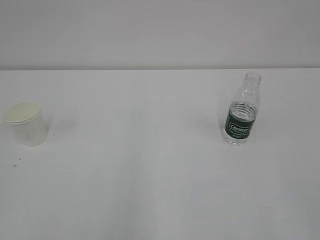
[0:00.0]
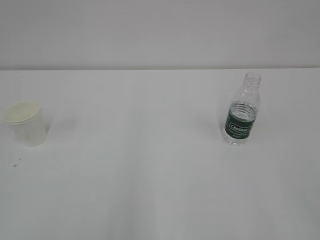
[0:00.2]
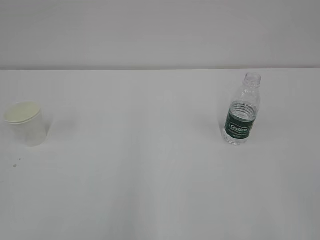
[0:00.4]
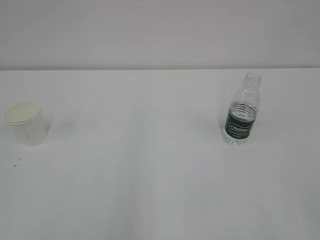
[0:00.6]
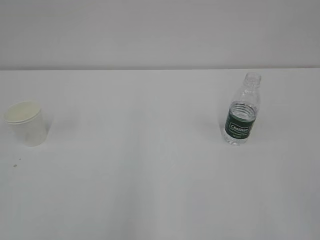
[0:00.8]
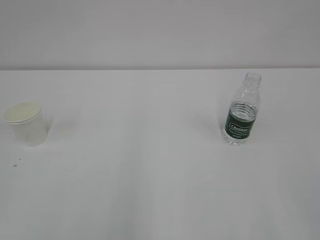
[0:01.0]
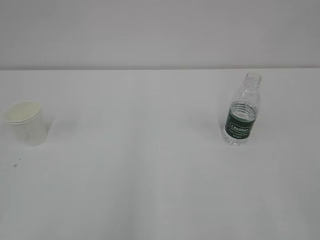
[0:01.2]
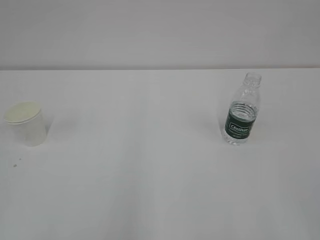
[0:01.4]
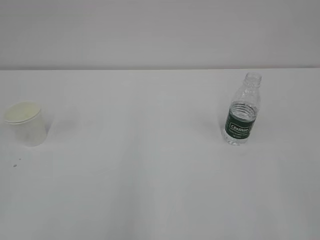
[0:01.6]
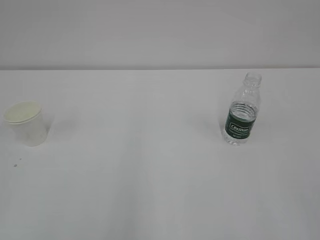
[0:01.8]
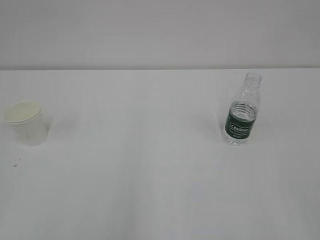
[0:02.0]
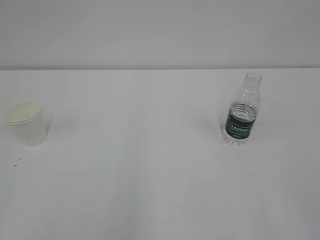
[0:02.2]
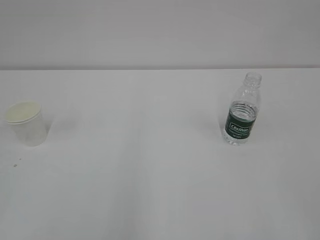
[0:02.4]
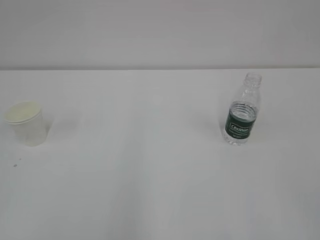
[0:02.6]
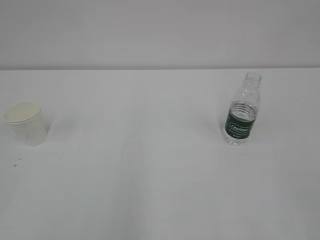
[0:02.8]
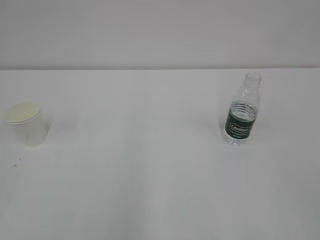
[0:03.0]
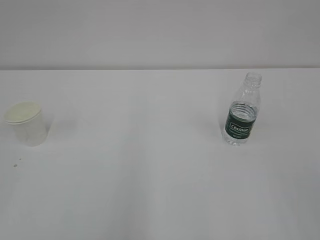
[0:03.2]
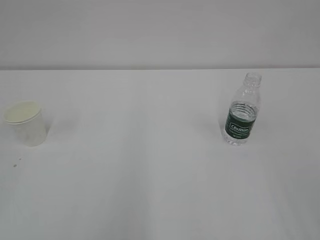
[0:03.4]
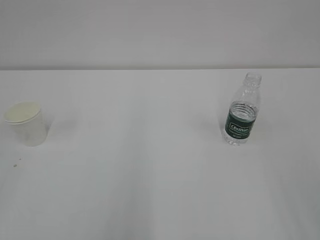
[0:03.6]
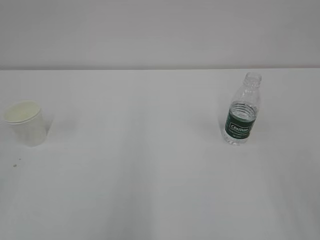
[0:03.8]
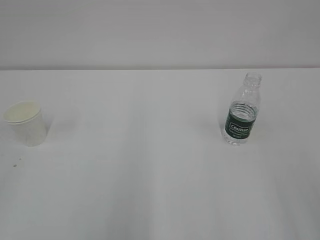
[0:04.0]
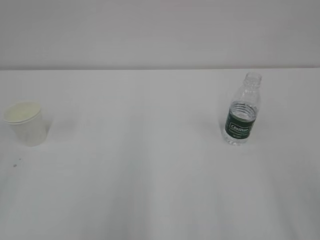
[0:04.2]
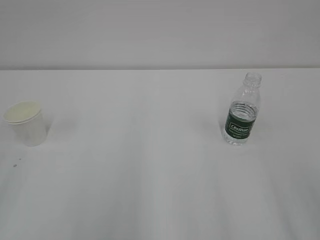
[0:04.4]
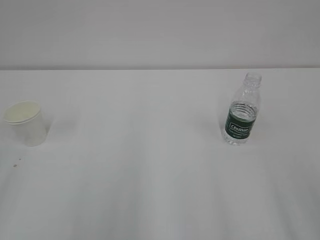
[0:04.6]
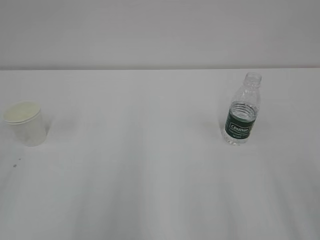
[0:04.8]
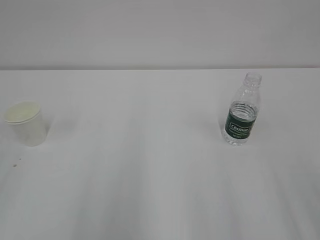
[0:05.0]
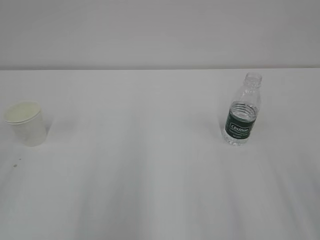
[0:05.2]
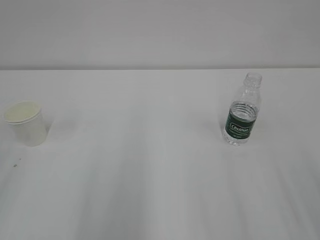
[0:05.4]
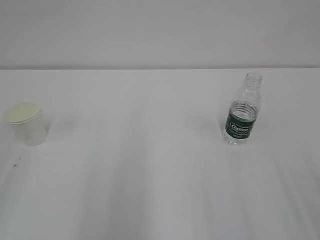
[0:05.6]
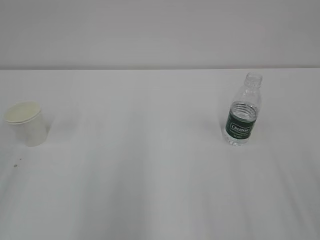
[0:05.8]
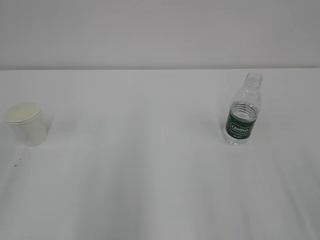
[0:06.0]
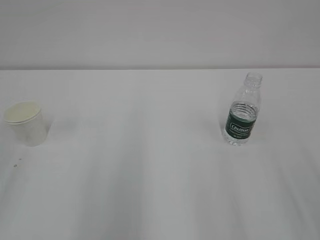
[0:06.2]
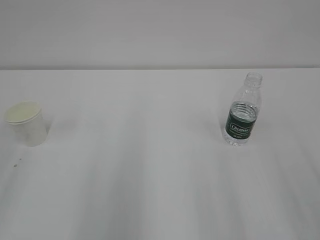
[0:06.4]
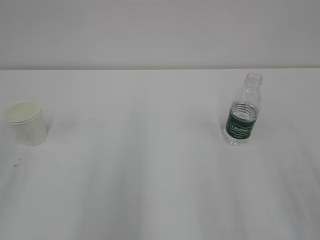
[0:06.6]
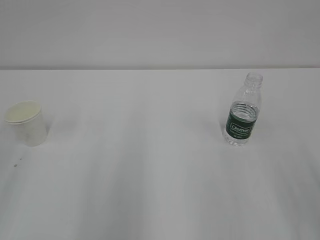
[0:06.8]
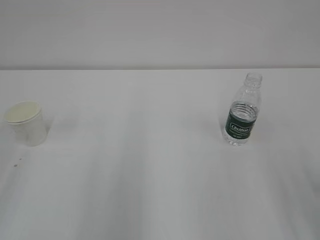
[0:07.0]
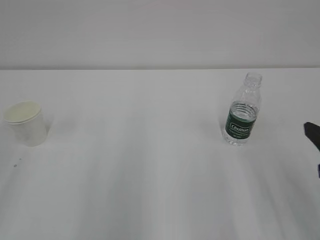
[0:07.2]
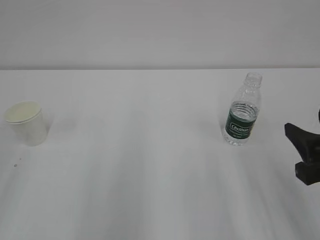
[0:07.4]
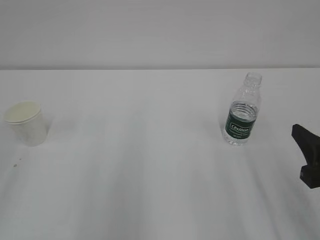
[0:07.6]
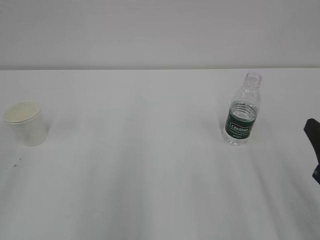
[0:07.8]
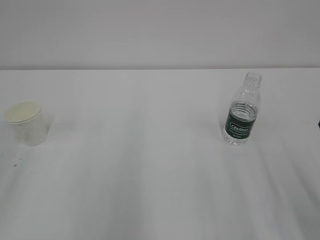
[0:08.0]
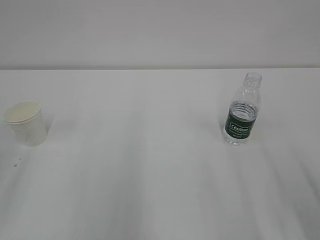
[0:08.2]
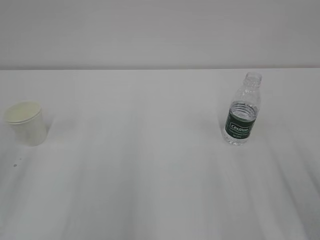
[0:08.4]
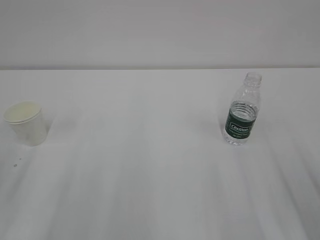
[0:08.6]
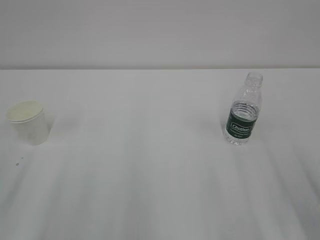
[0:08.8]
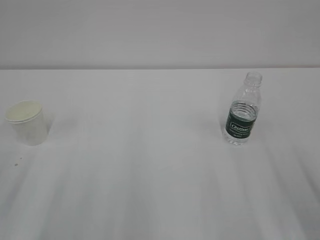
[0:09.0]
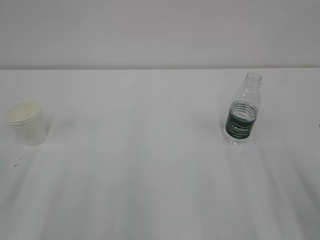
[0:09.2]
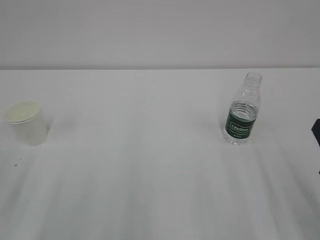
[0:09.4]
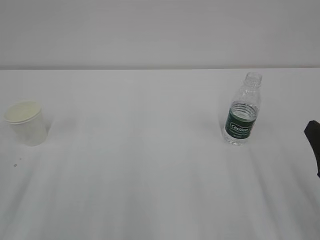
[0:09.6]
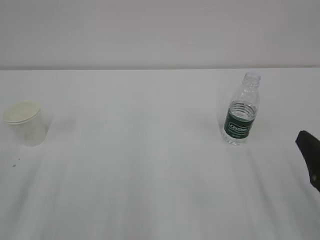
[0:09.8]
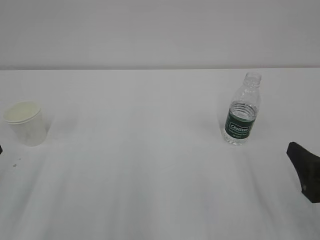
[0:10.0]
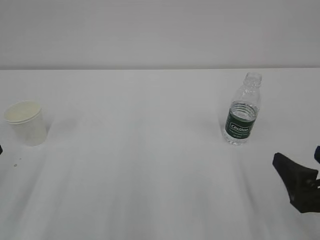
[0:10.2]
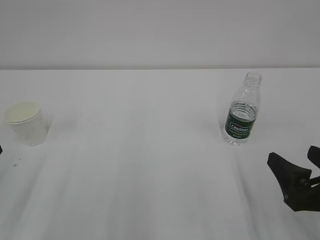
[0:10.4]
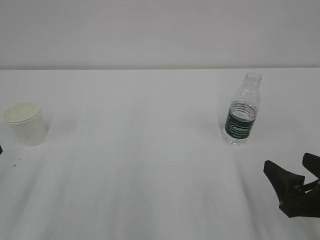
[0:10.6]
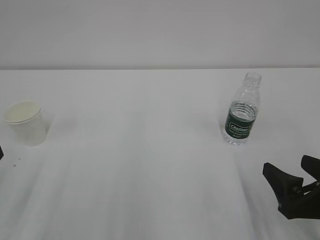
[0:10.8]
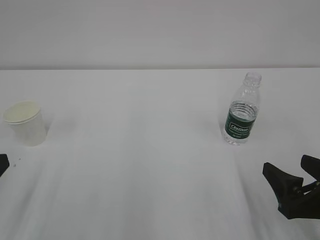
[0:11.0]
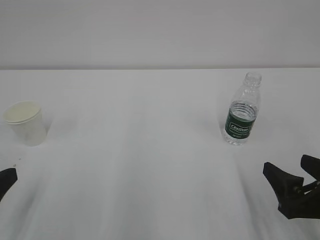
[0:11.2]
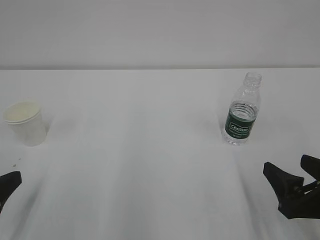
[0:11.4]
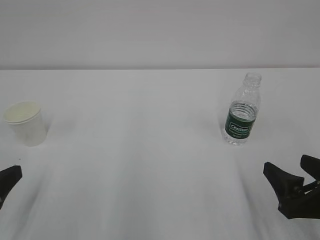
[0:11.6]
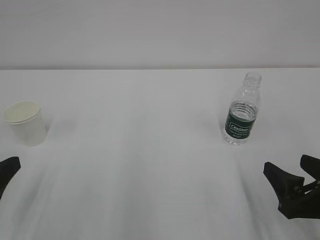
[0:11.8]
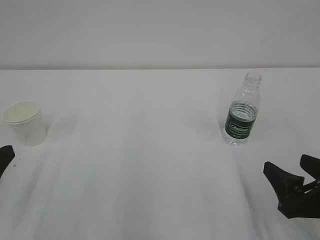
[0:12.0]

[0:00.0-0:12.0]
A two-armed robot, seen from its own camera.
0:06.0 to 0:07.6: The right gripper moves forward, roughly 10 cm.
0:09.0 to 0:10.4: The right gripper ends up approximately 5 cm from where it was, and opens its fingers.
0:10.4 to 0:12.0: There are only small adjustments of the grippers.

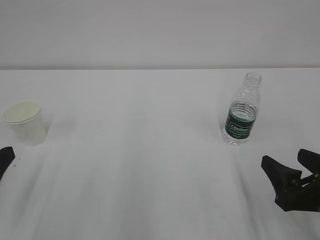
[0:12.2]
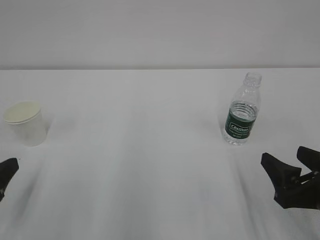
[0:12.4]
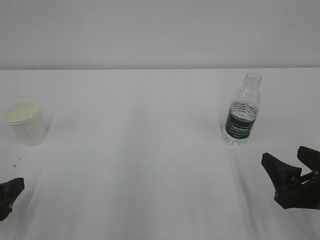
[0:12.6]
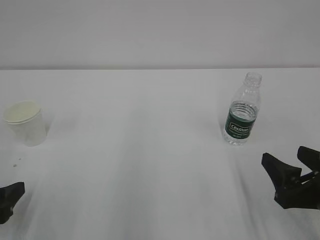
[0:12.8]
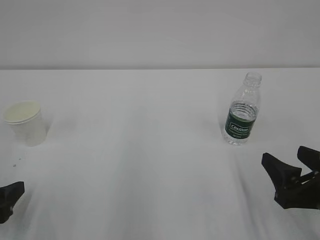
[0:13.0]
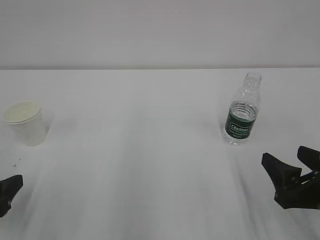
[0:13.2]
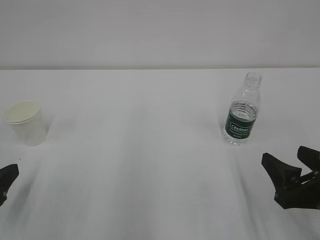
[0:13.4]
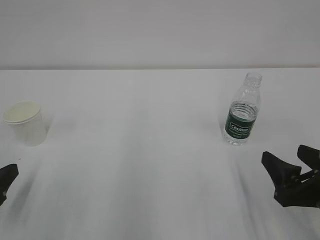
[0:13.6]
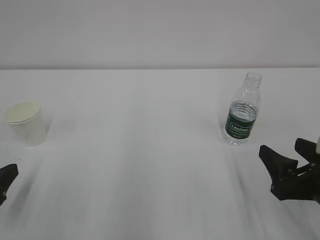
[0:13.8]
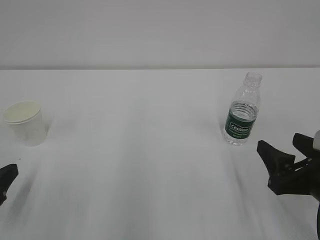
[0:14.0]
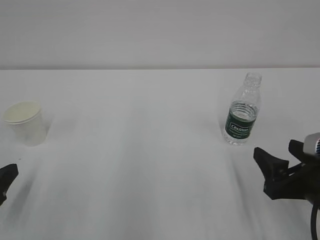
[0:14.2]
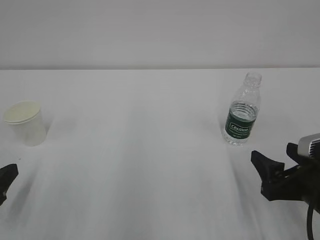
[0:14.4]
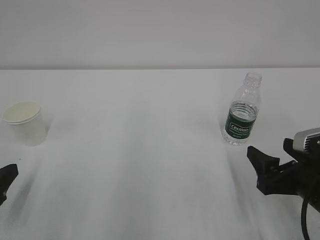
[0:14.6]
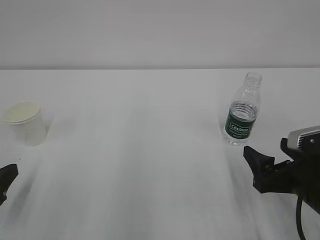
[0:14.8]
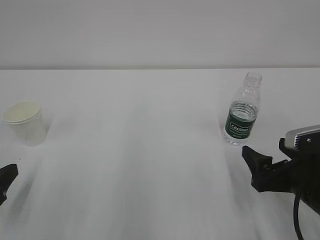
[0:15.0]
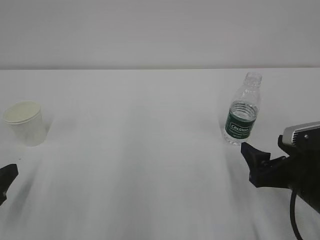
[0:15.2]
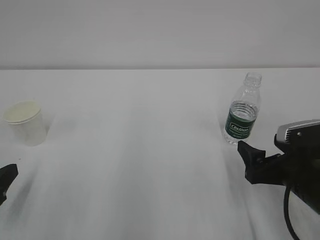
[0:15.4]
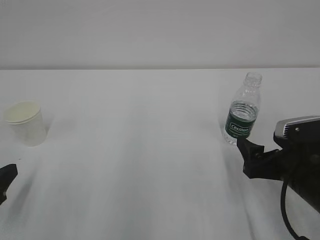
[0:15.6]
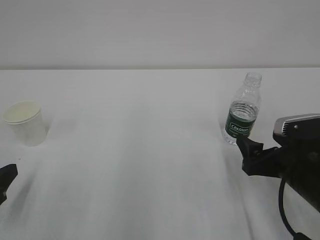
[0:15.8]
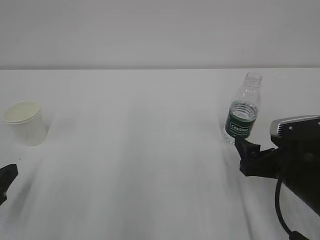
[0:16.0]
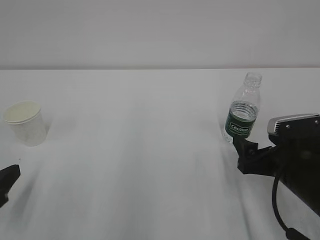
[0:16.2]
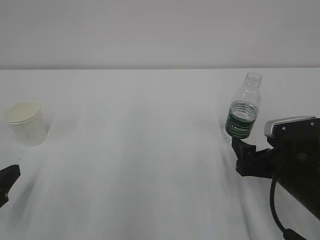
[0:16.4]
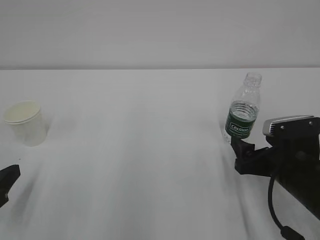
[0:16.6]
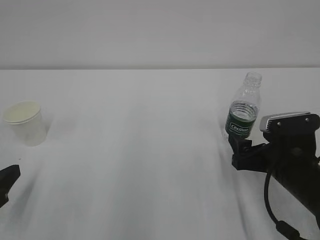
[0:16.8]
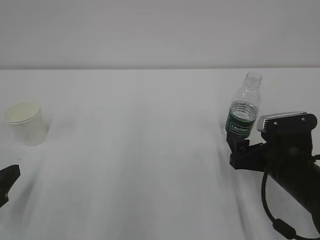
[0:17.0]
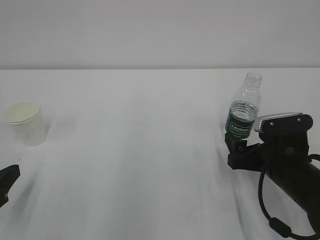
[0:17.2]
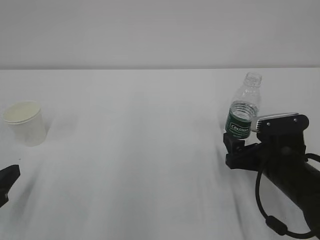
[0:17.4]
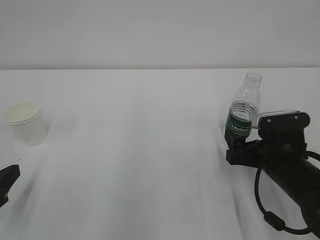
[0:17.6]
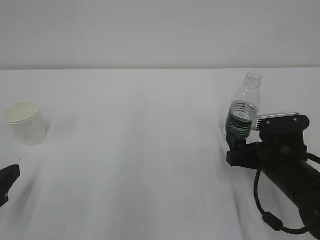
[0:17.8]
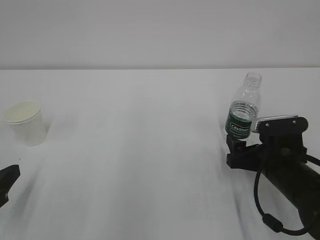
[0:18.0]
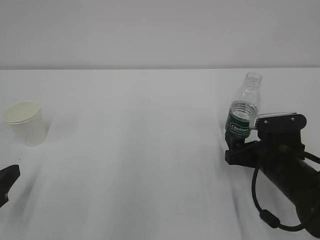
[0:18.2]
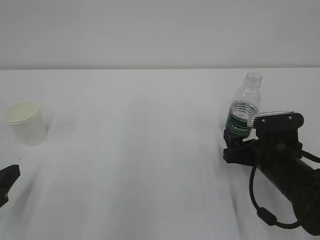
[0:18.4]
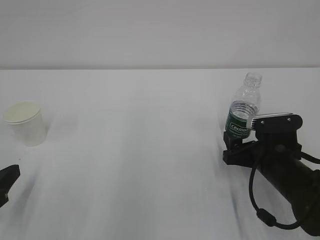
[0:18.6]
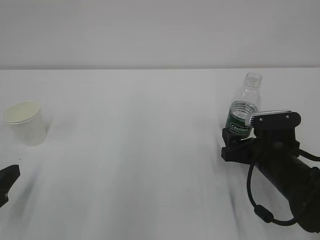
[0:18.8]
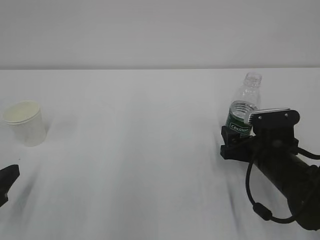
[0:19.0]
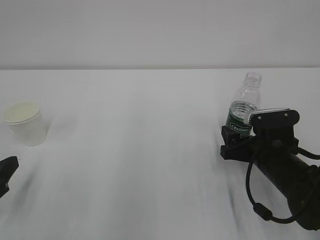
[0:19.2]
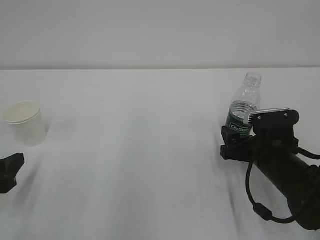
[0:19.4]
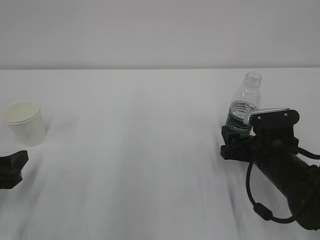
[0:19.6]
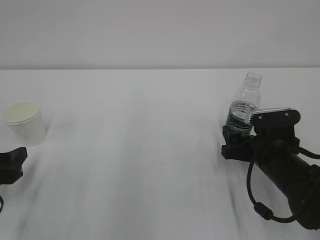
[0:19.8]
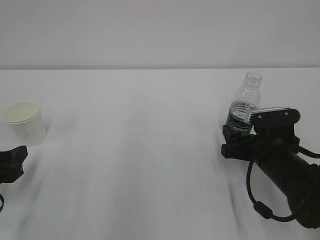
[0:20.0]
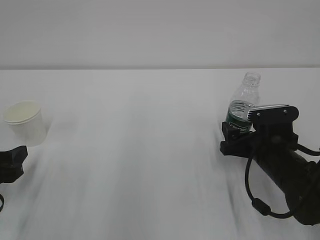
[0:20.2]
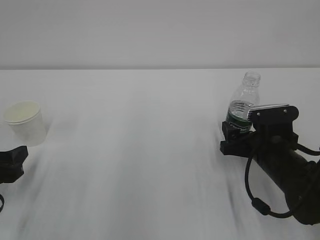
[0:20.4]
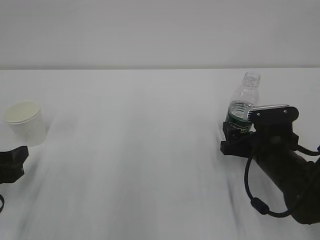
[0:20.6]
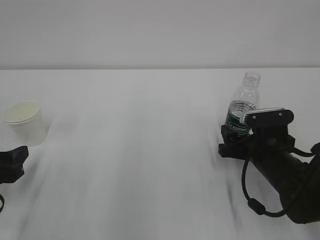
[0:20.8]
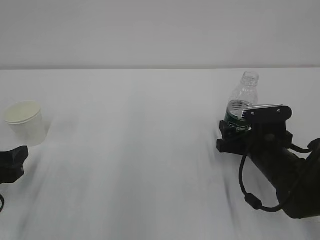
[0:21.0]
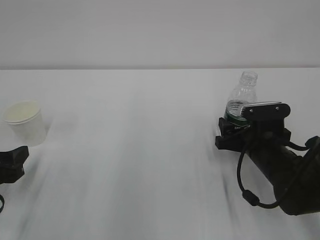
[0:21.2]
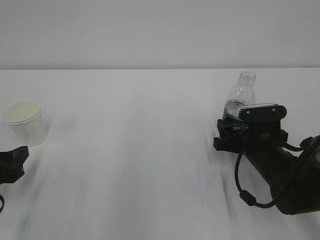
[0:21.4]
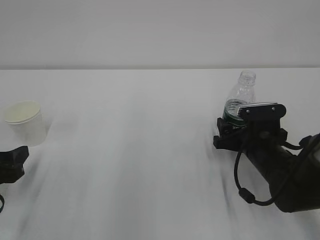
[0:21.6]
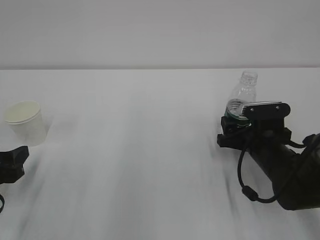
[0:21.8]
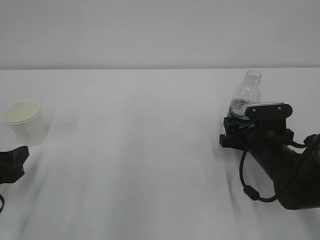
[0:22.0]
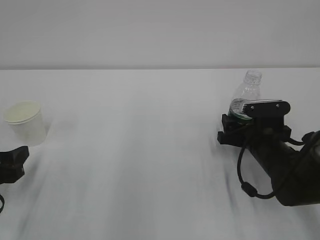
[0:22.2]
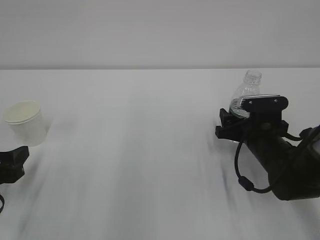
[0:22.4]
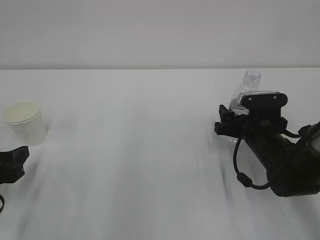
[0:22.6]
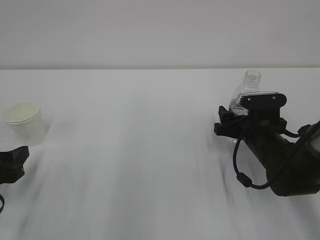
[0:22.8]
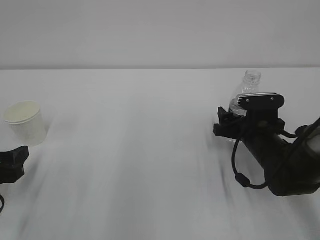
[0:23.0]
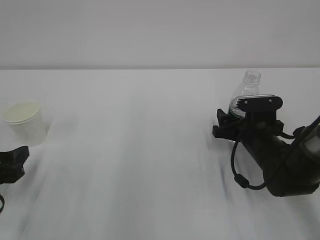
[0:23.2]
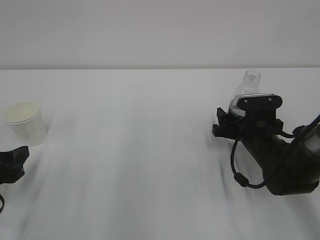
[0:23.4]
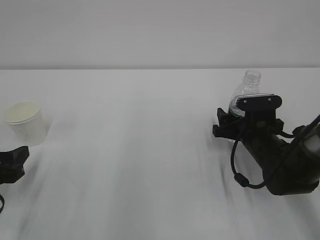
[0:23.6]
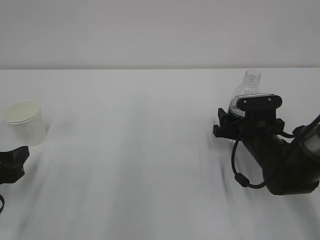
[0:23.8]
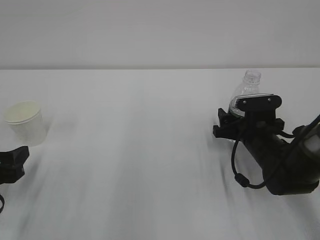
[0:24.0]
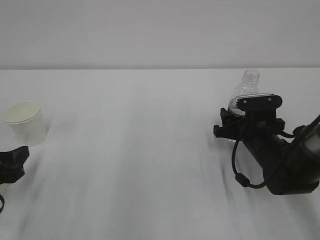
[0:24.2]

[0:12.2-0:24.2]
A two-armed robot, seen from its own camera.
0:12.2 to 0:15.2: The grippers move only a little.
0:15.2 to 0:16.6: The grippers stay close to where they were, moving slightly.
0:16.6 to 0:19.8: The grippers make only small movements.
0:19.8 to 0:22.6: There are only small adjustments of the grippers.
0:22.6 to 0:24.2: Both grippers stay put.
